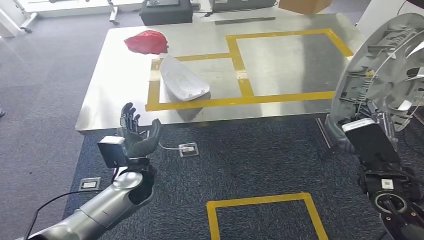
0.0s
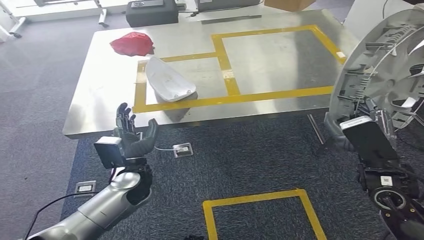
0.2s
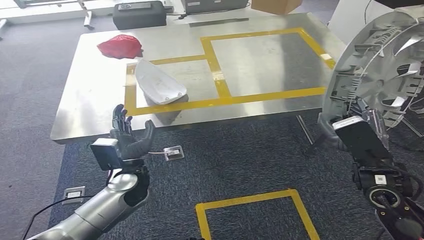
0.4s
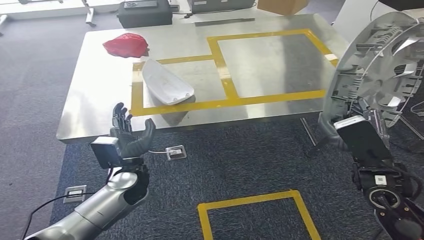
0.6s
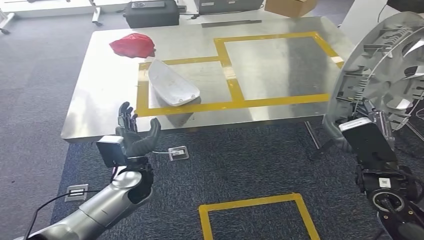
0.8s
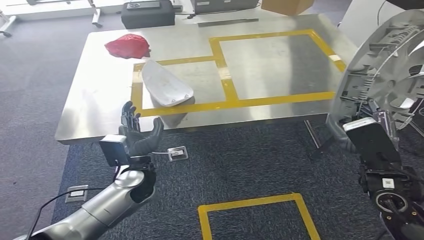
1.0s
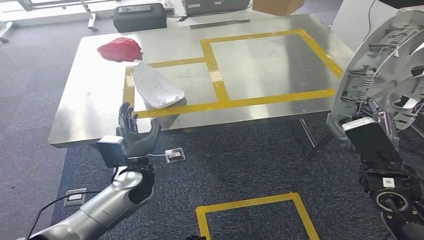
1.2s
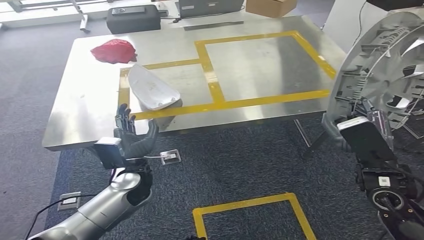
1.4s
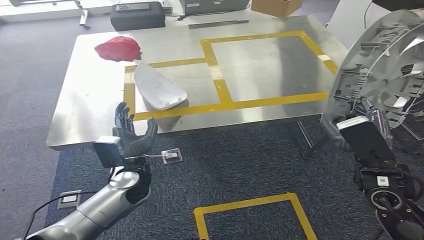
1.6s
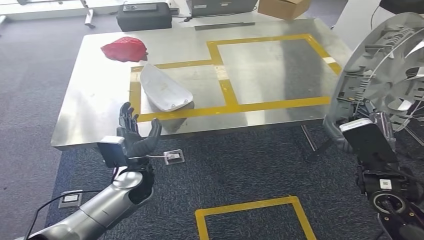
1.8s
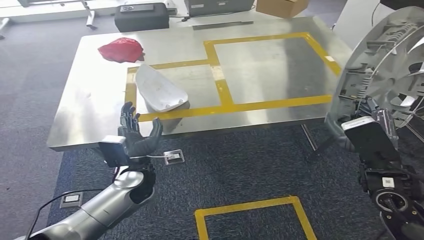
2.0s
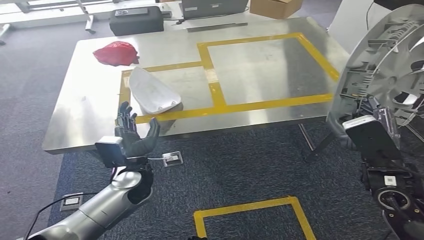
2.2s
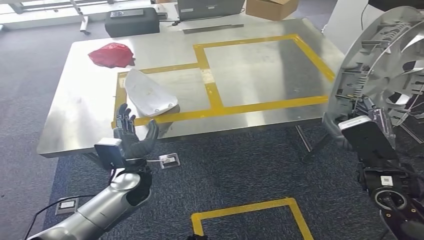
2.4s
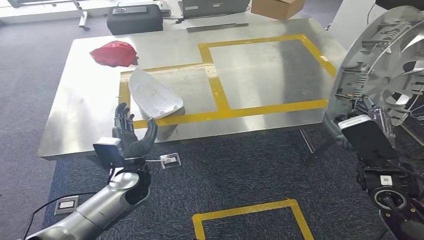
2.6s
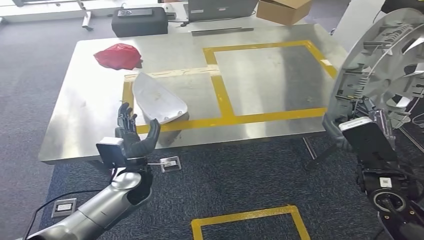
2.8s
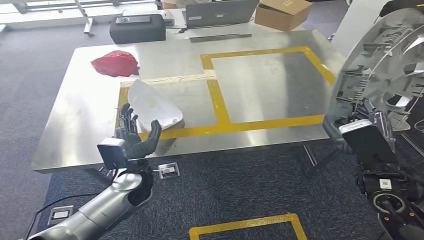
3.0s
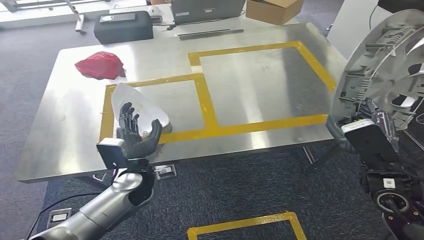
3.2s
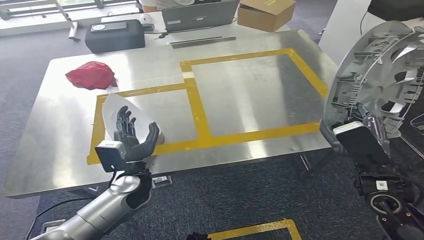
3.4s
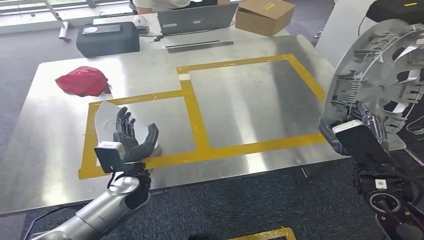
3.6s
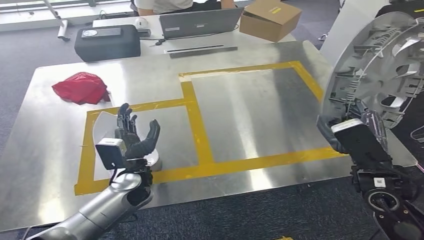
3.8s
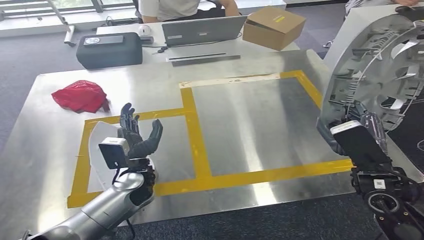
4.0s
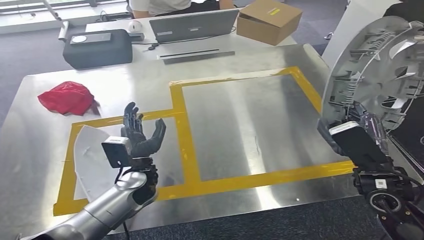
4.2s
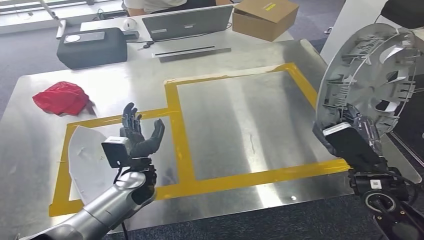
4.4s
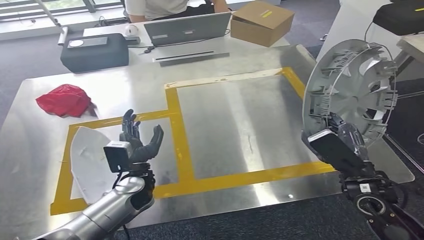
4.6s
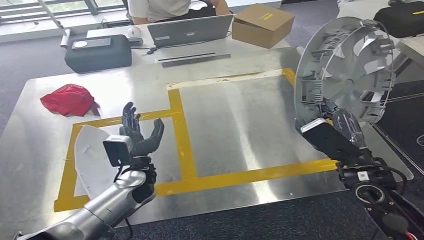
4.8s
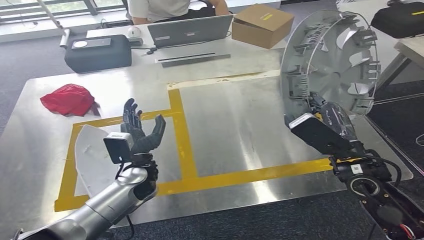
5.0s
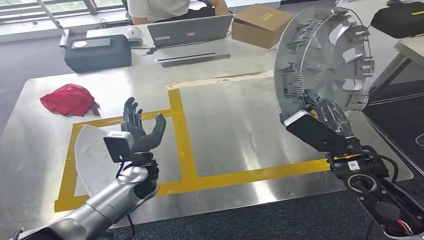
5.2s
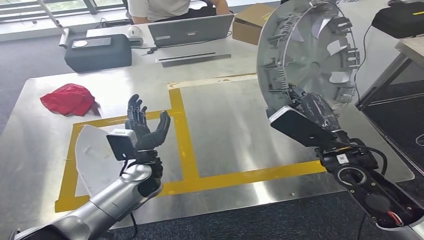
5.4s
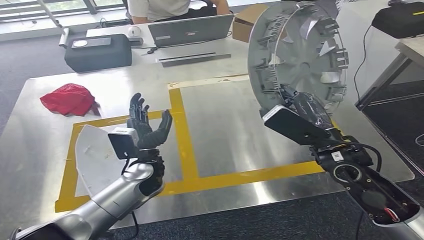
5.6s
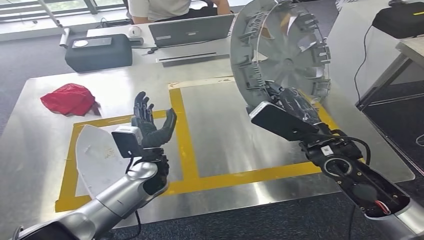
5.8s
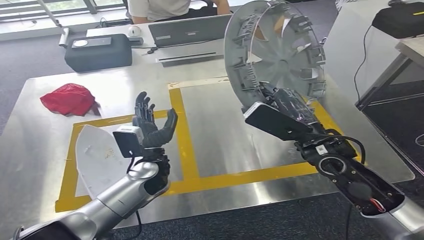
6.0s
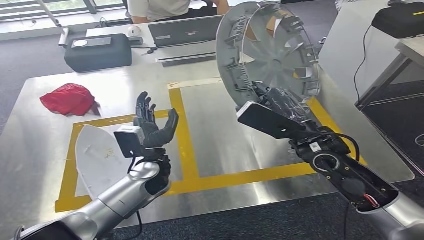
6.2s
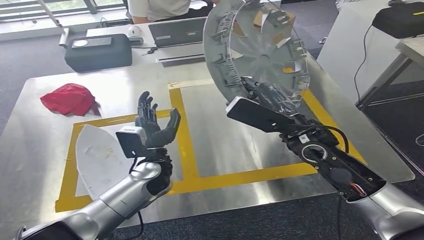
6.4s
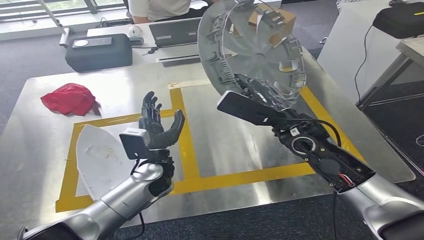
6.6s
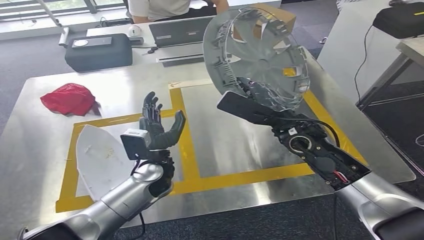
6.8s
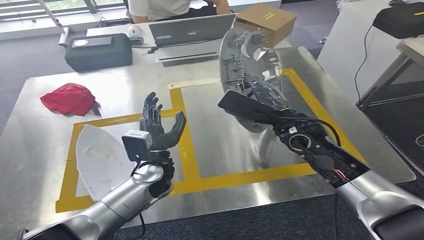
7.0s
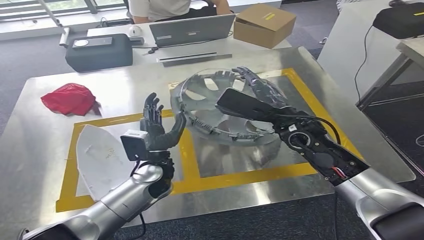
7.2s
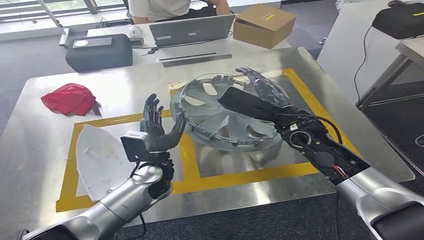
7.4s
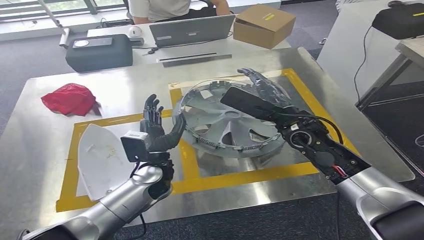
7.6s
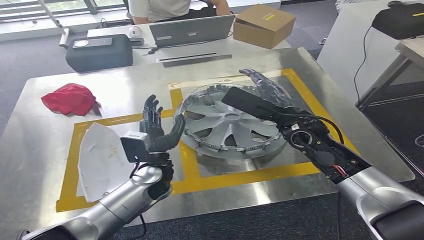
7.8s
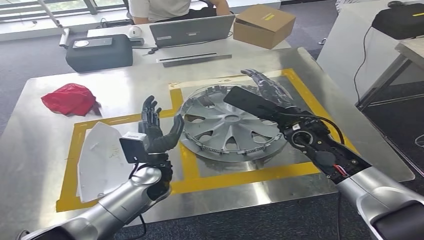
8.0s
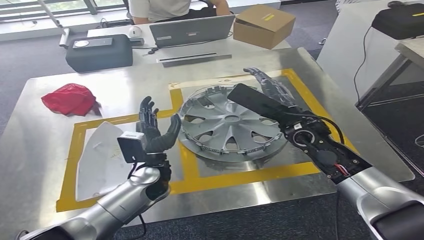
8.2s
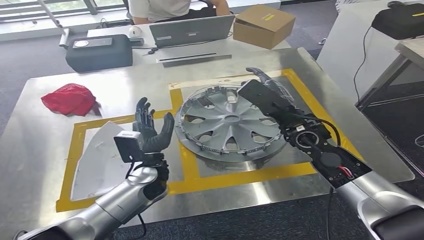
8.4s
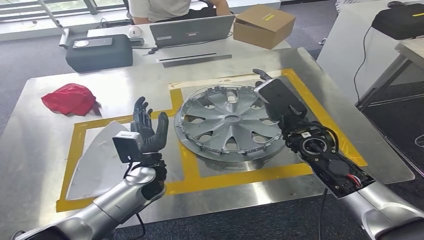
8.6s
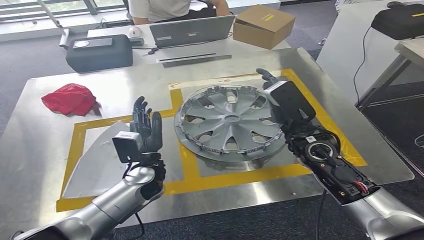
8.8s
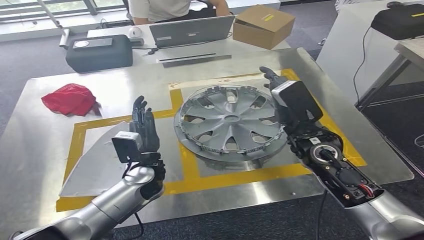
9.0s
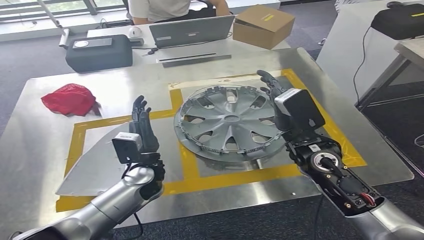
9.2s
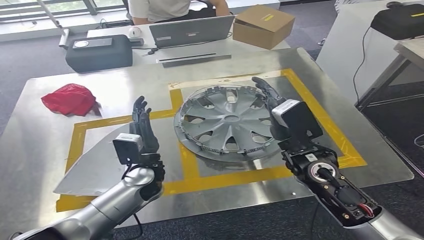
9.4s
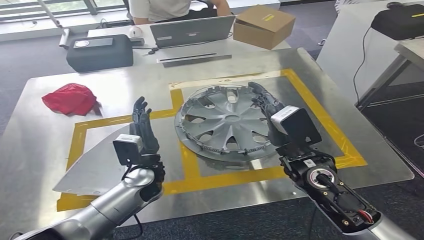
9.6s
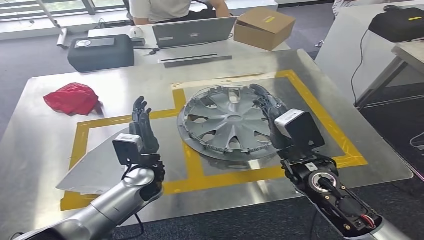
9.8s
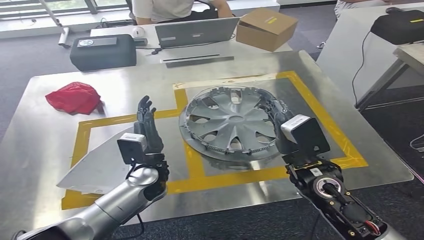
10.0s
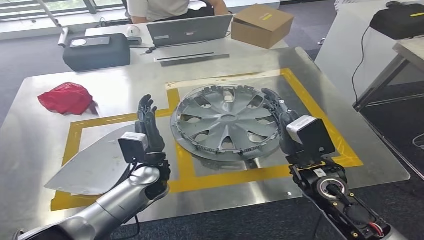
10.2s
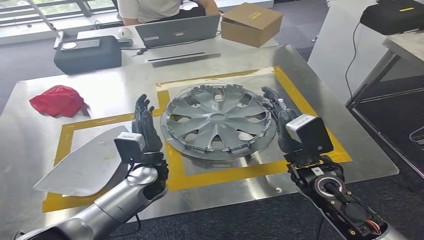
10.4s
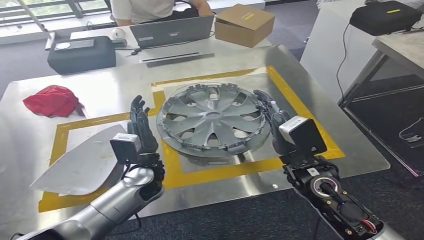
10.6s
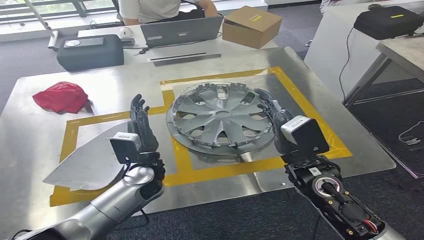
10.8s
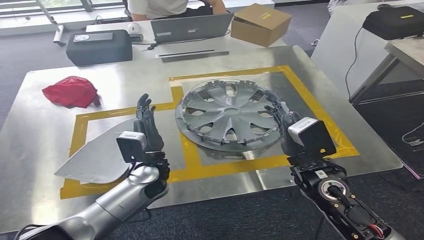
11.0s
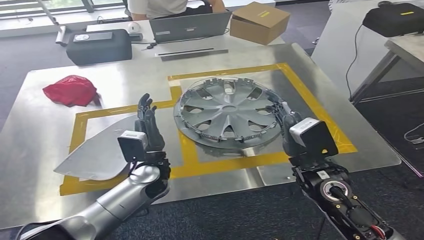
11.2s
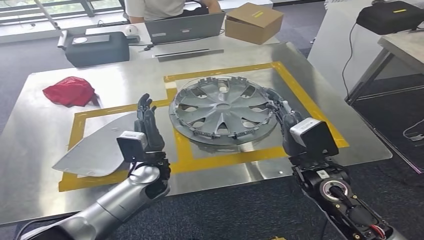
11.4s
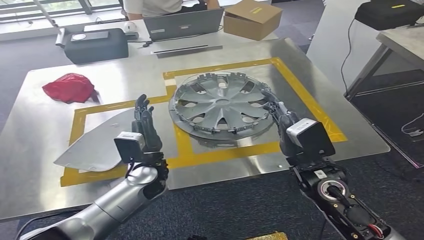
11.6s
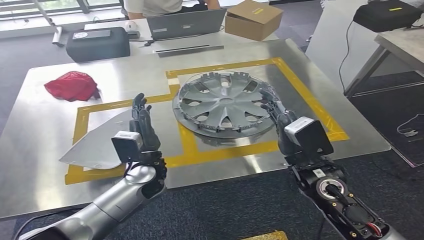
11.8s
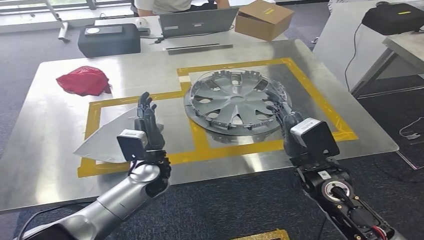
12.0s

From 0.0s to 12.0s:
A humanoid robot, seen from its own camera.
Step, from 0.0s to 8.0s: Insert the small parts into the corresponding holes on the workbench.

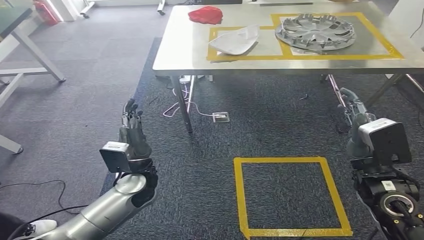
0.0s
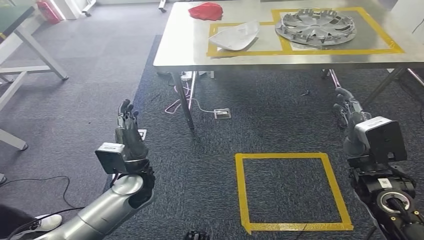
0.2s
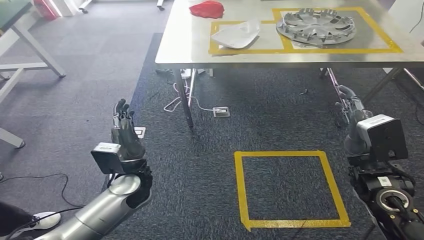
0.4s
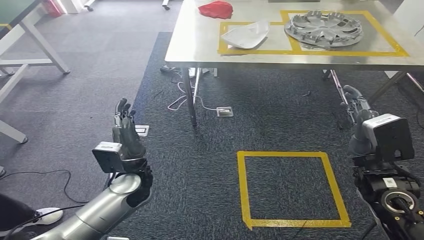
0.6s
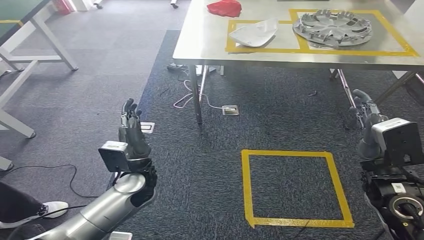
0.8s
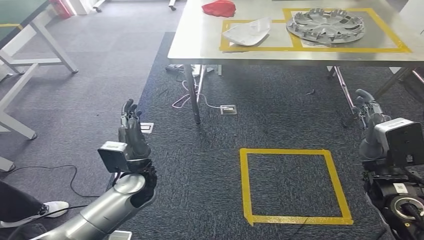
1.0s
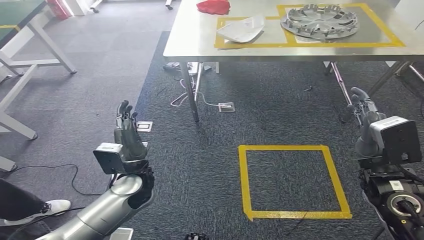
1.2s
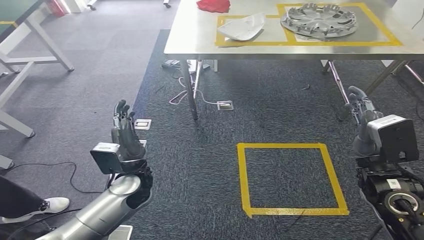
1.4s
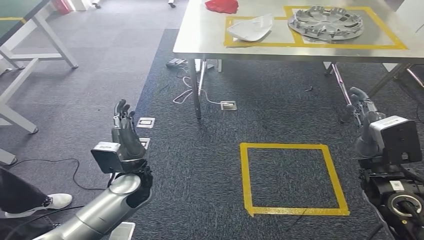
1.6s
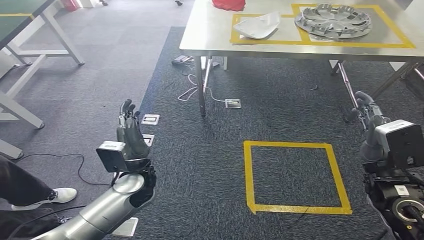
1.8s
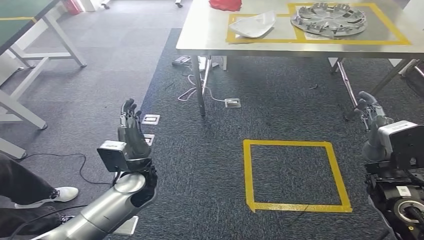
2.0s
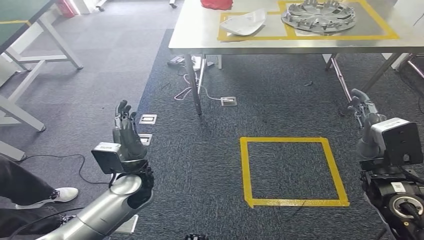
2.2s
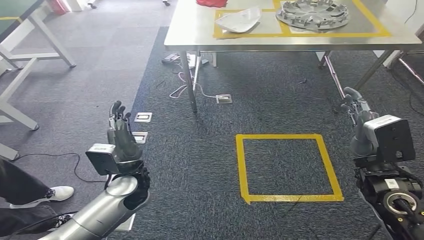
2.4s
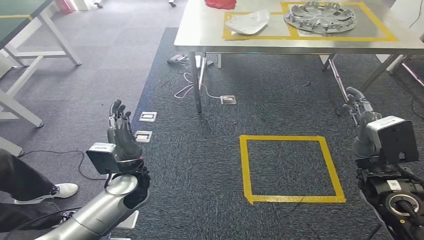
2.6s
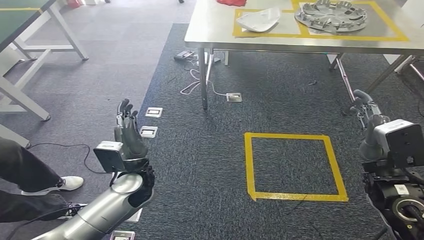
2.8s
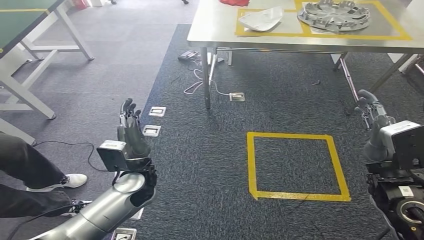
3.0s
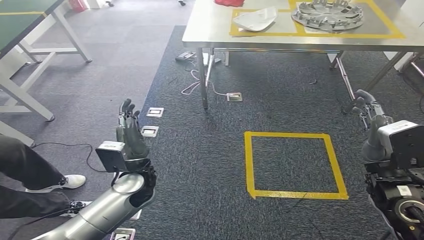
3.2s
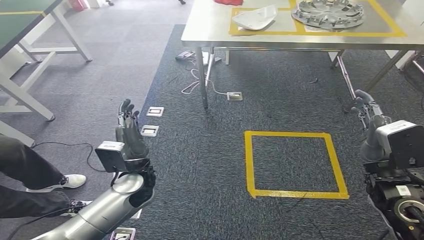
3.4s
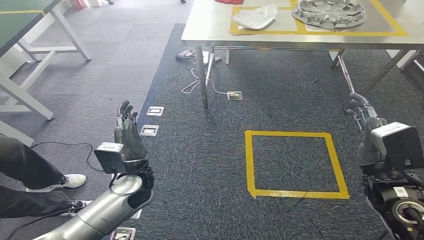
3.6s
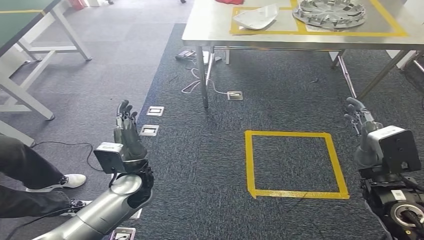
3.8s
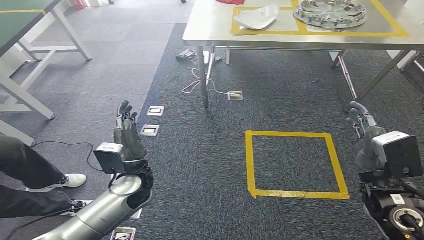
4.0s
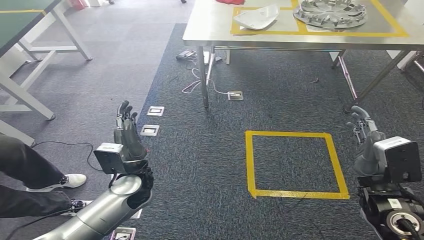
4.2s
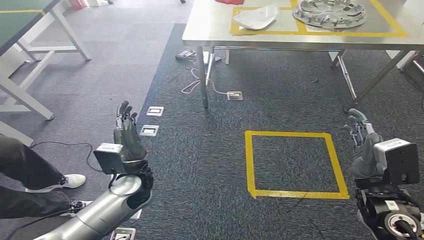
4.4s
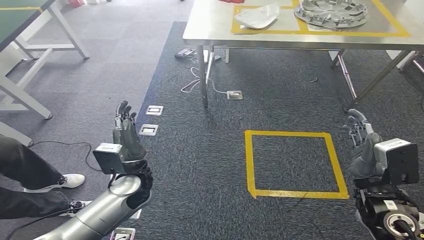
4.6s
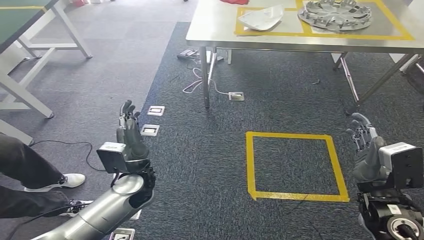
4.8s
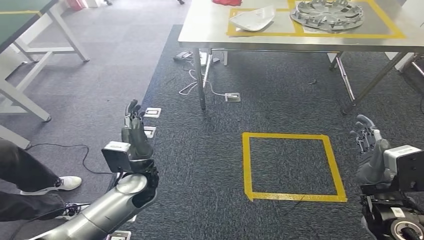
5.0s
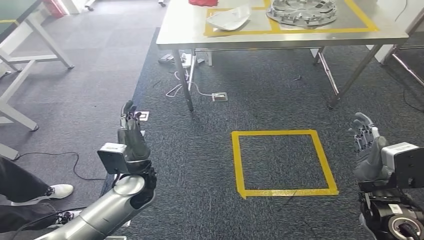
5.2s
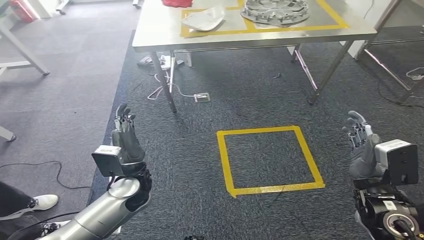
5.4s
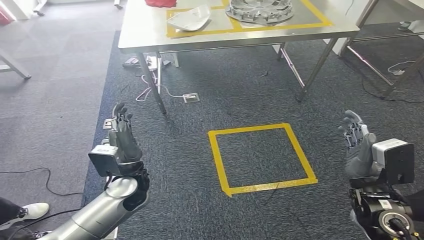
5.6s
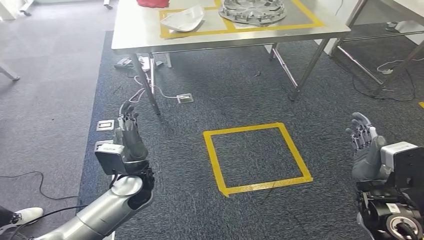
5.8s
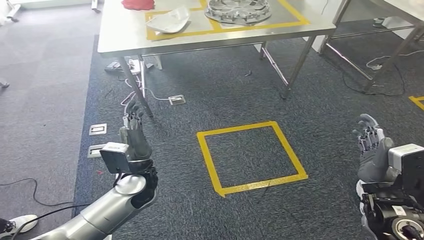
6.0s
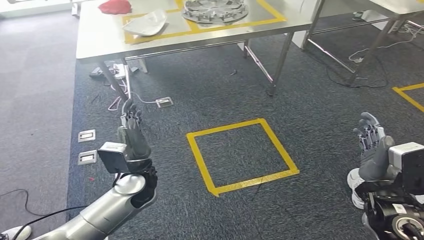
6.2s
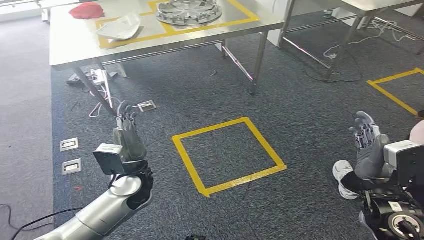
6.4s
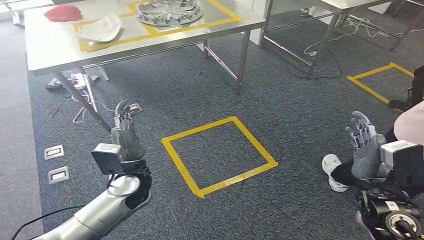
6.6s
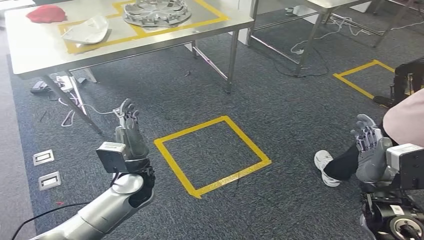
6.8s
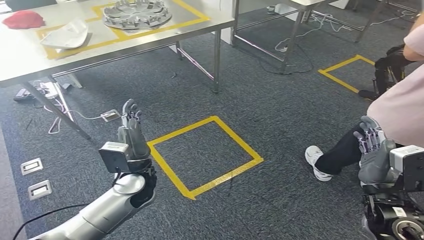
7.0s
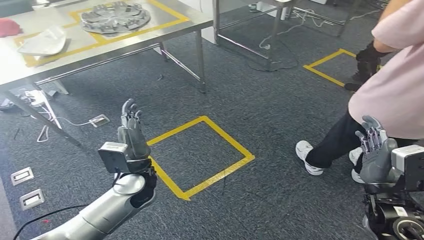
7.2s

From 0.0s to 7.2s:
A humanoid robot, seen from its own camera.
From 2.8s to 4.4s: The hands move only a little.
